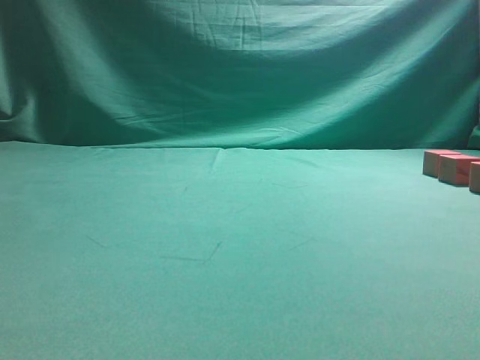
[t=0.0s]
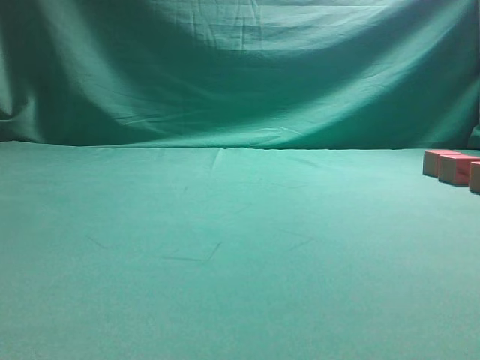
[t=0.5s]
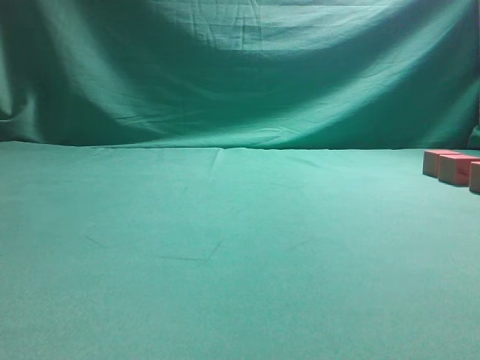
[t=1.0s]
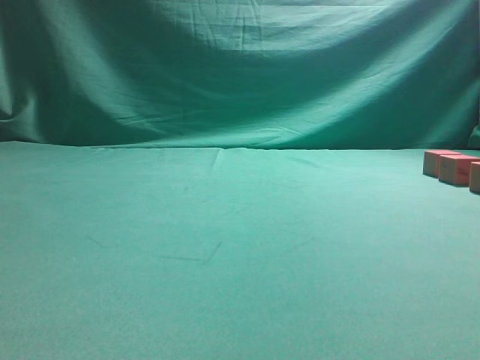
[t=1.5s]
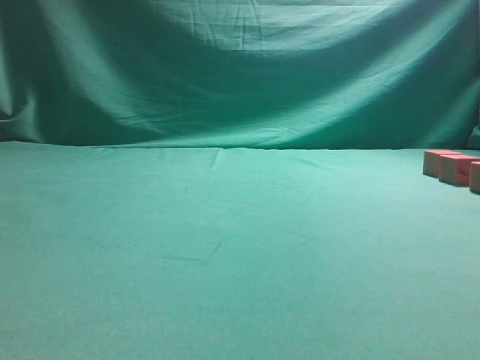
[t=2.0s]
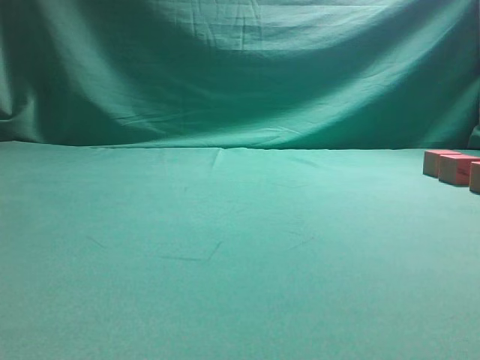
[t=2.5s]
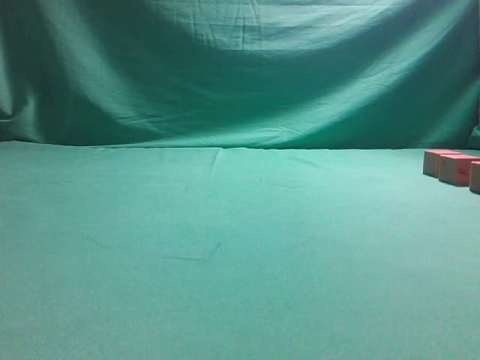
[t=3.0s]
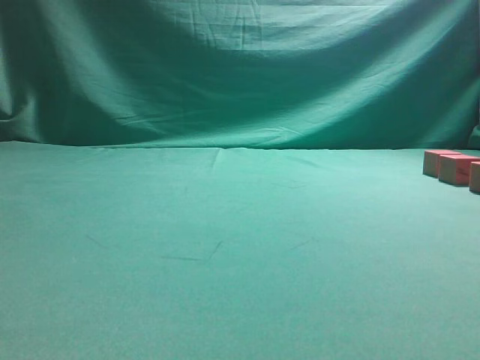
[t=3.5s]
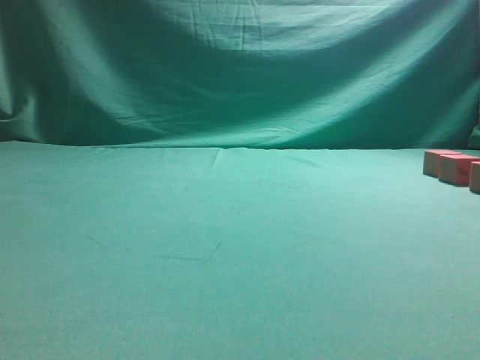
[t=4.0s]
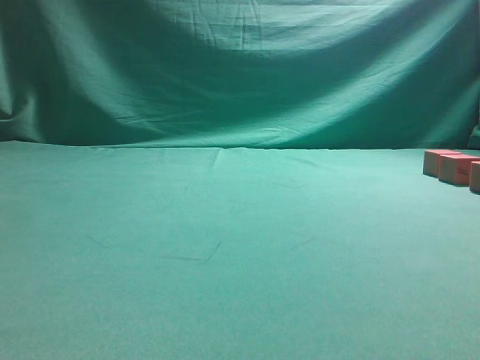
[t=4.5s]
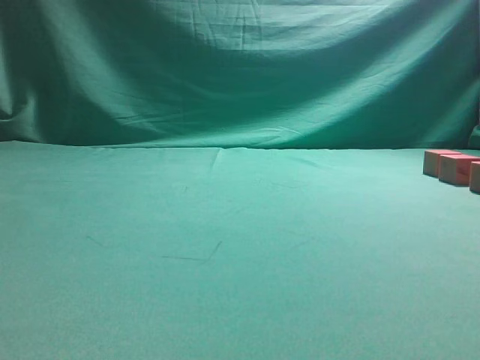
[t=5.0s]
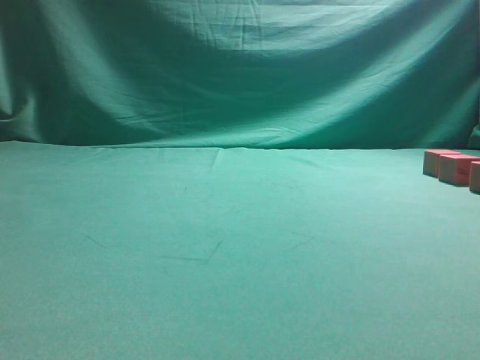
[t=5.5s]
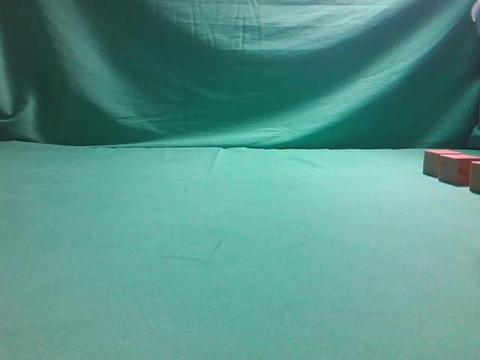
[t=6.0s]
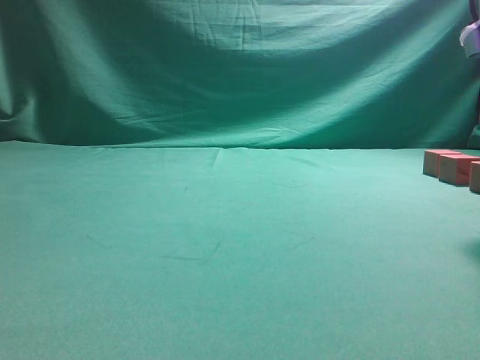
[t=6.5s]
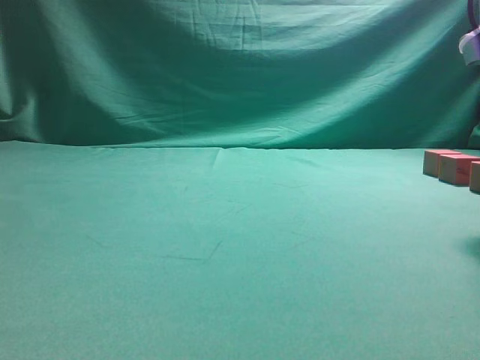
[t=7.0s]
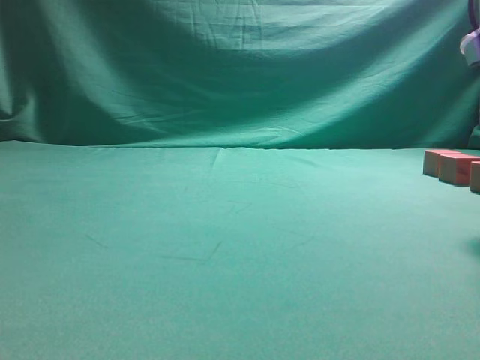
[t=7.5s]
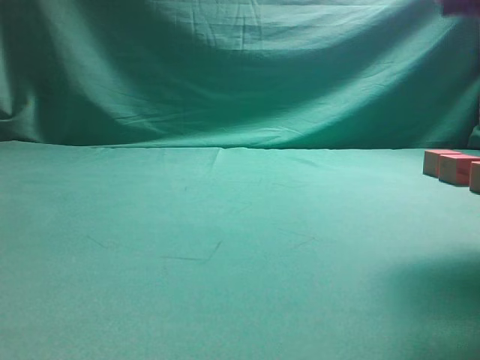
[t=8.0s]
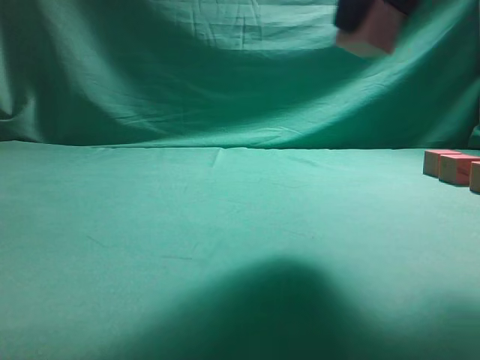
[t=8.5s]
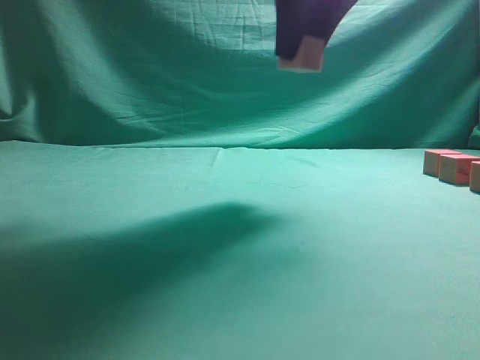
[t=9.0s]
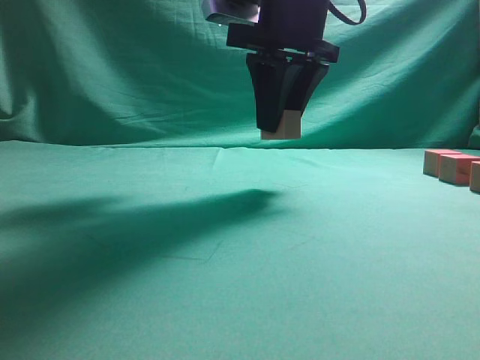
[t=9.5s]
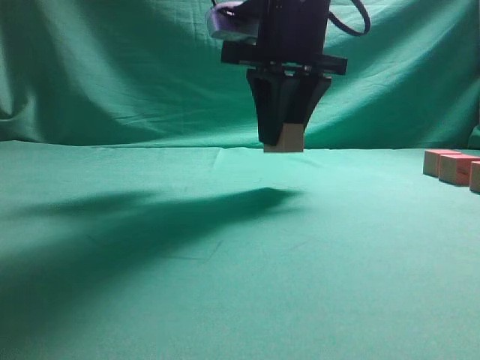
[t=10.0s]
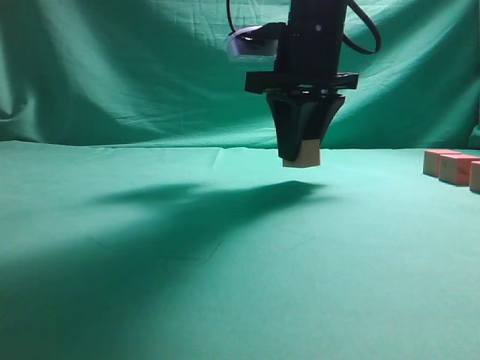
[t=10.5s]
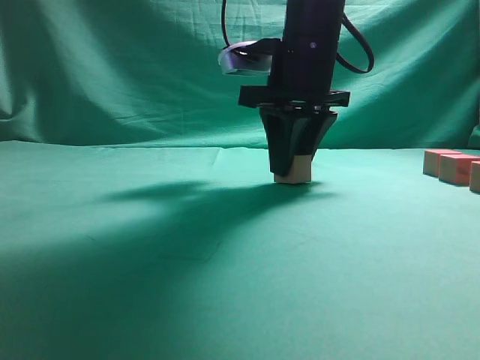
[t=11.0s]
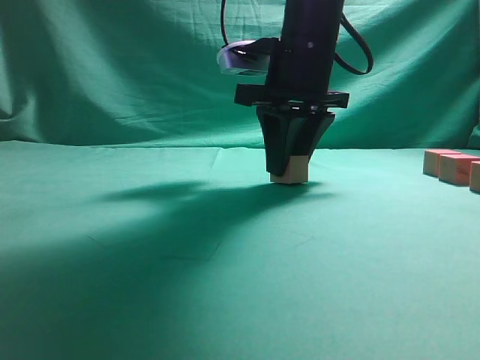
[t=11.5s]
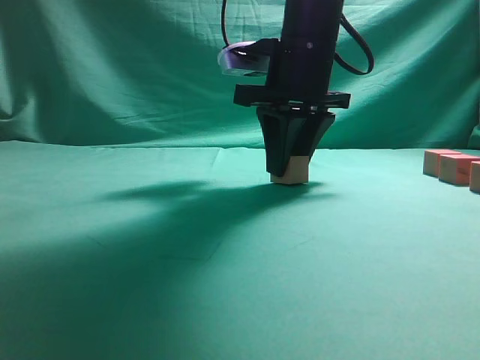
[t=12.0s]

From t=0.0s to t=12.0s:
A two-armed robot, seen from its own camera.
Task of the whole recording: pick up the multiple cubes in two columns one by one and place them in another position on the table.
Step, from t=0.0s to t=8.0s: Pick up the block on the table.
From t=6.0s to t=8.0s: The right gripper closes up.
From t=8.0s to t=10.0s: The right gripper moves to the left and forward, some 20 cm.

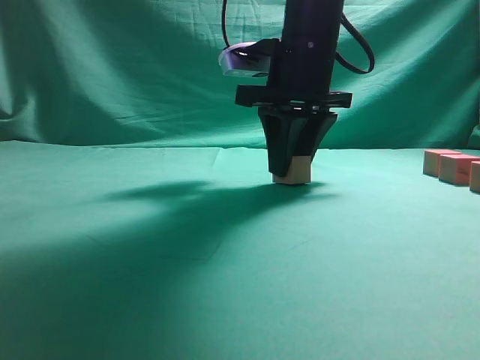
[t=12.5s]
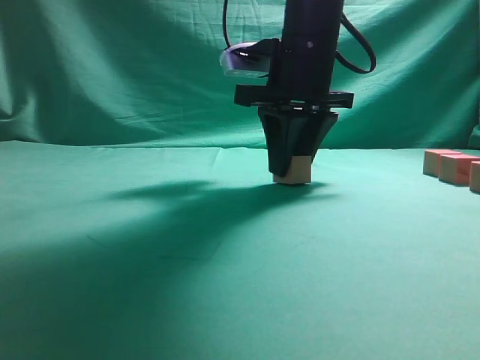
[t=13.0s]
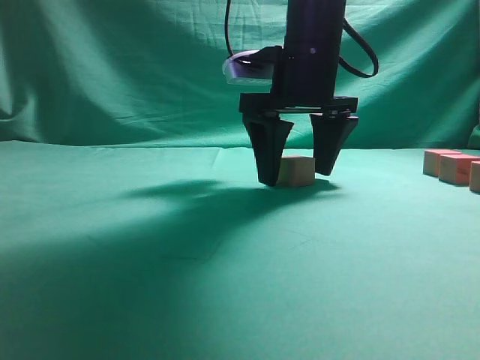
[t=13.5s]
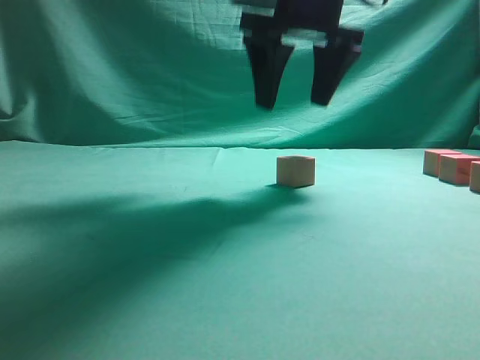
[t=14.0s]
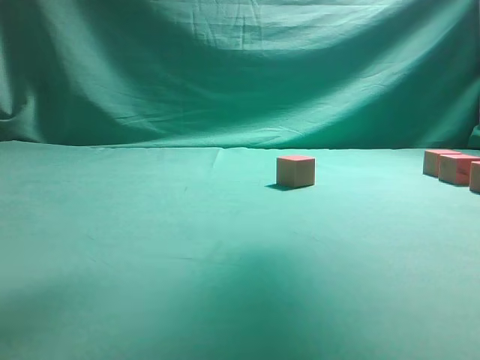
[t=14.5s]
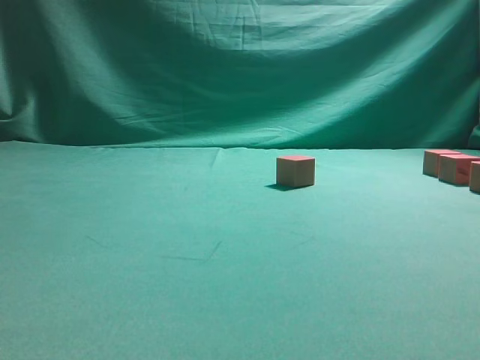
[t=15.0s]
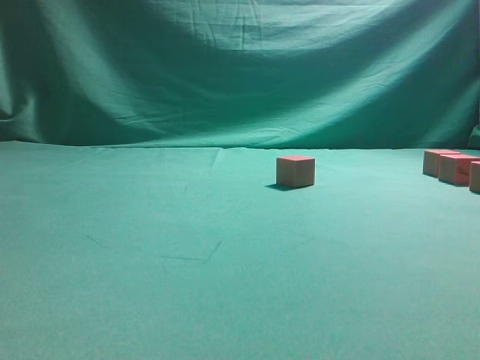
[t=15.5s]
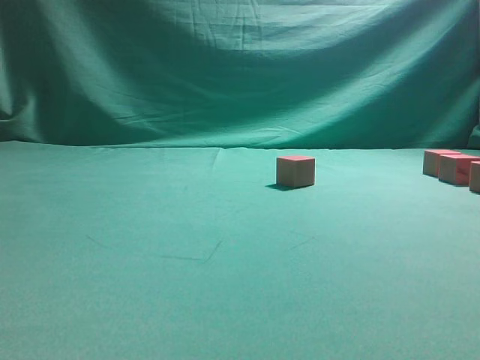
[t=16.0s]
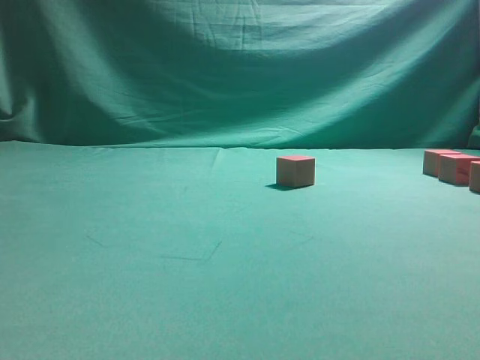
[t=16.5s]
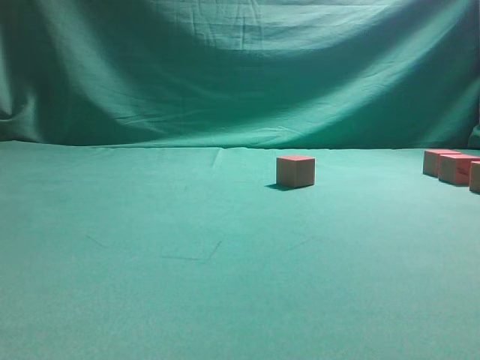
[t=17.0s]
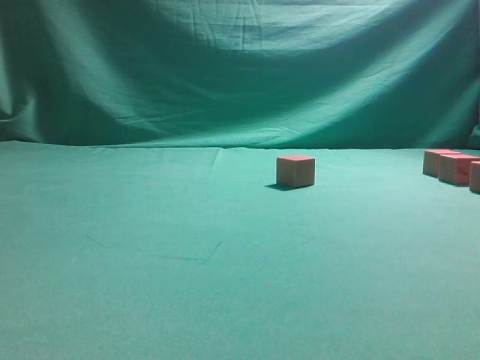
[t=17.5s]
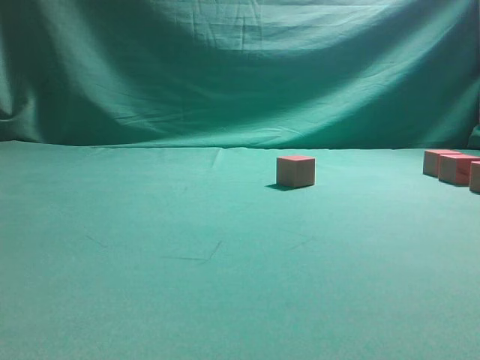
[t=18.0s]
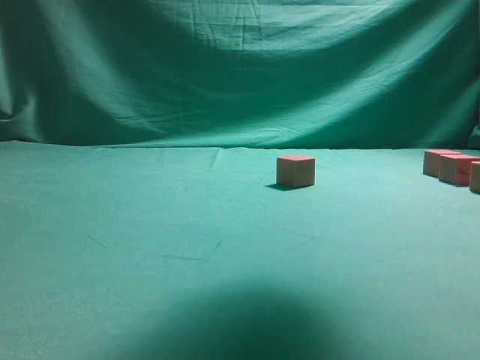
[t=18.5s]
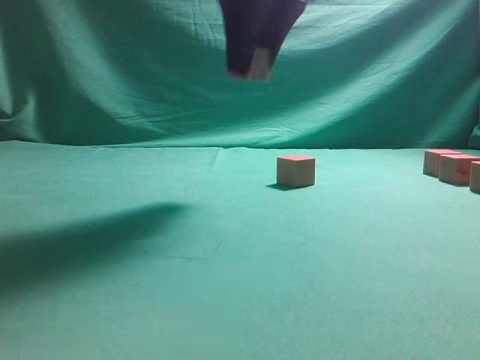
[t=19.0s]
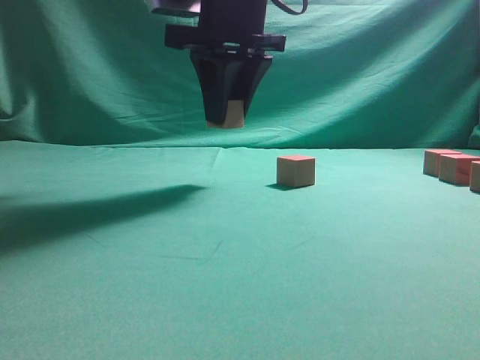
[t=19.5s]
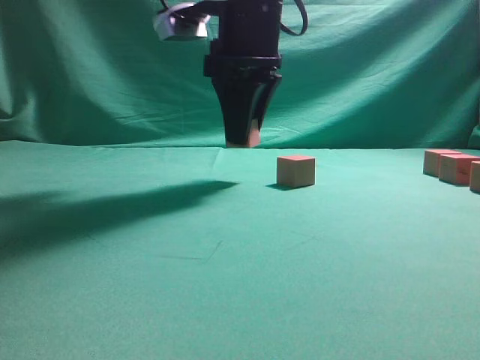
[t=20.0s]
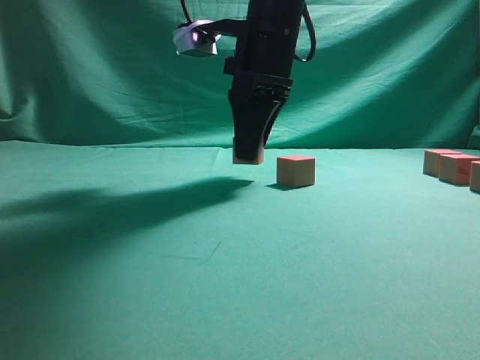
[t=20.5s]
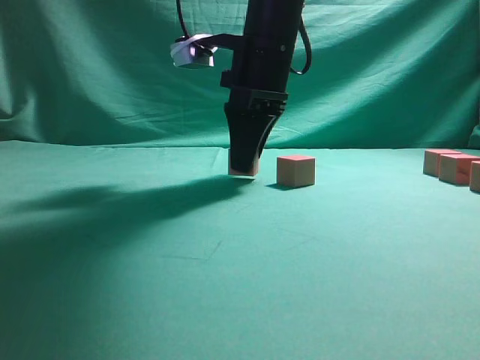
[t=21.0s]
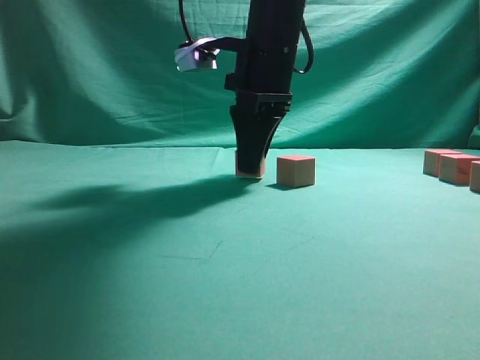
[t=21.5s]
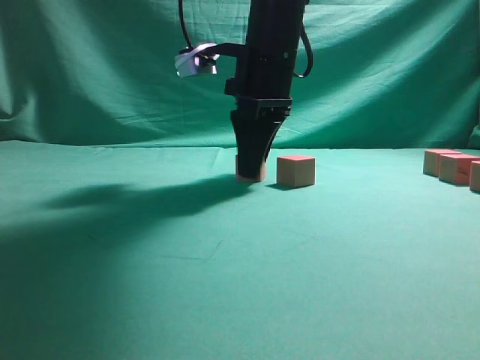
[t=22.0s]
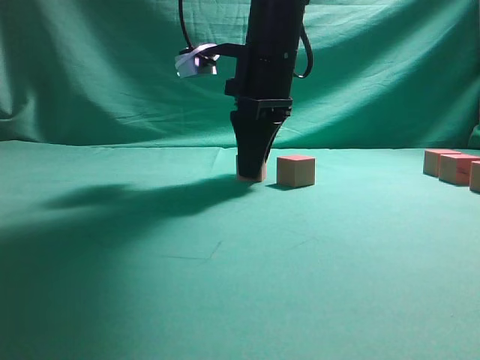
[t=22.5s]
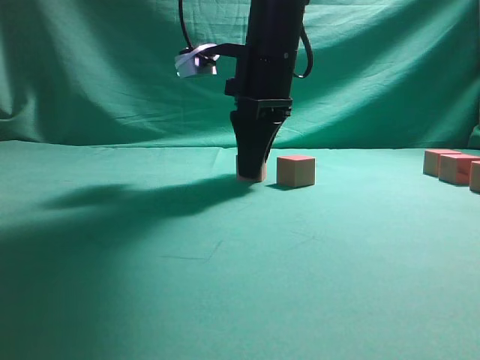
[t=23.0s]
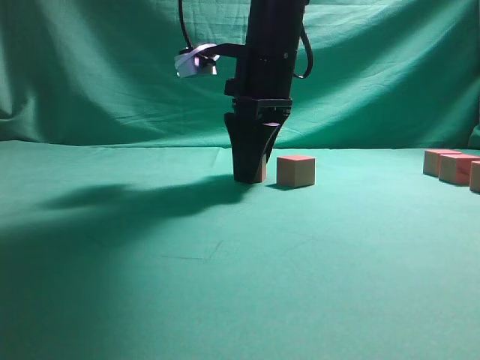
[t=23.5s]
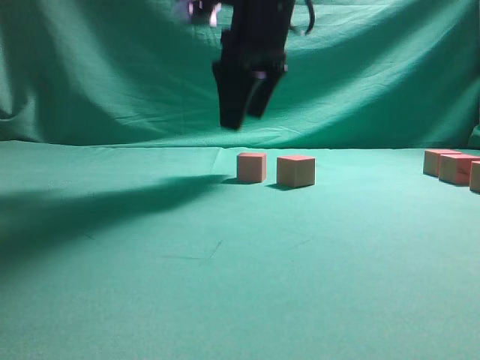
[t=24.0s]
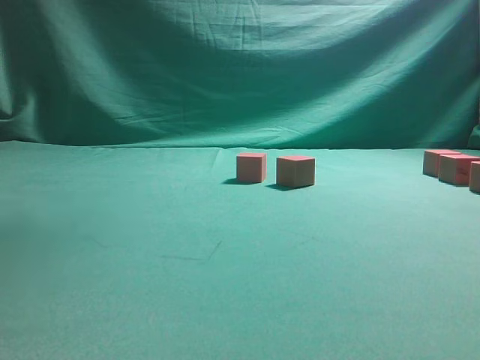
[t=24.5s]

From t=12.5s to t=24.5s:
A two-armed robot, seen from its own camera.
Task of the whole recording: pick up the multiple cubes in two columns one by one and place them in another position on the table.
Step, from t=14.5s to t=18.5s: Pick up the block on the table.
Step, from t=19.0s to t=24.0s: Place the block at the correct position to assemble the letter S.
From t=12.5s to t=14.5s: The right gripper travels upward by approximately 20 cm, and opens up.
From t=14.5s to t=16.5s: The right gripper goes roughly 25 cm downward and to the right.
From t=16.5s to t=18.5s: The right gripper shifts approximately 25 cm upward and to the left, and closes up.
From t=18.5s to t=20.5s: The right gripper is displaced forward, downward and to the left by approximately 25 cm.
From t=20.5s to t=22.5s: The grippers make only small movements.
From t=22.5s to t=24.5s: The right gripper heads upward, covering roughly 25 cm, and opens up.

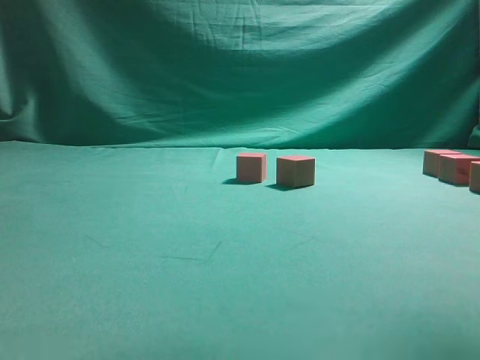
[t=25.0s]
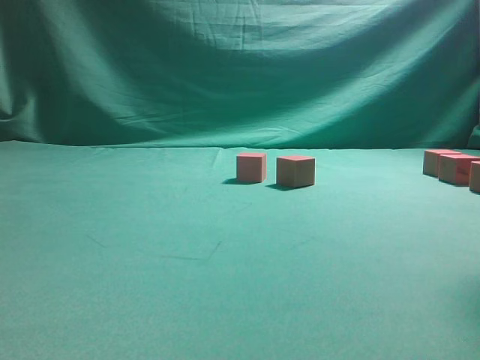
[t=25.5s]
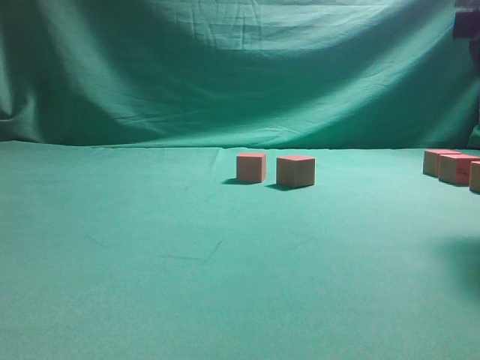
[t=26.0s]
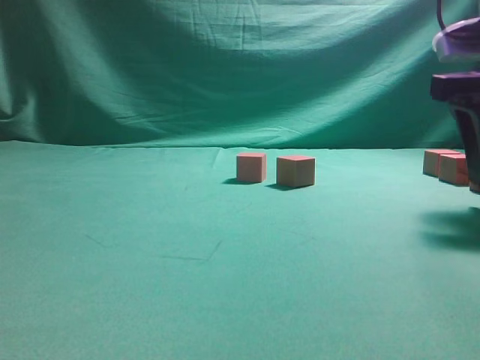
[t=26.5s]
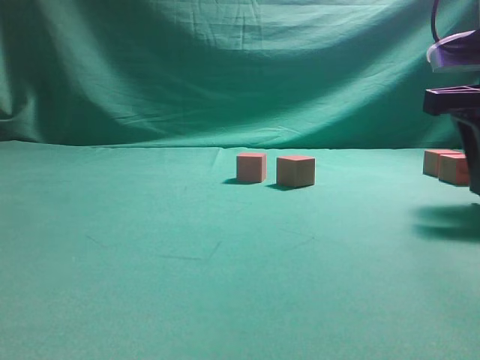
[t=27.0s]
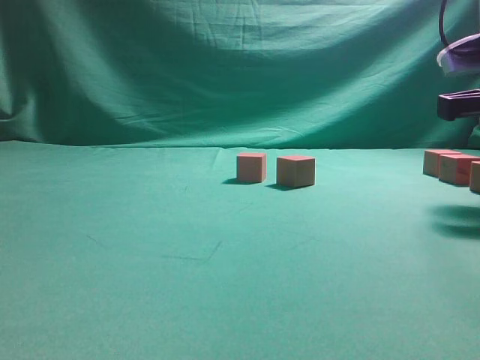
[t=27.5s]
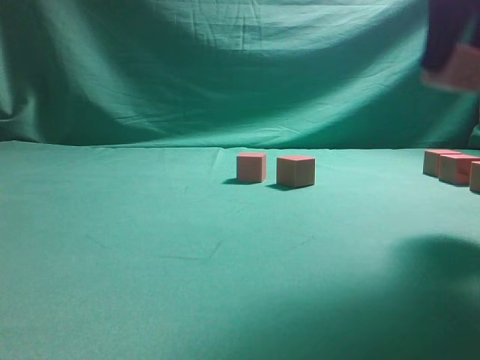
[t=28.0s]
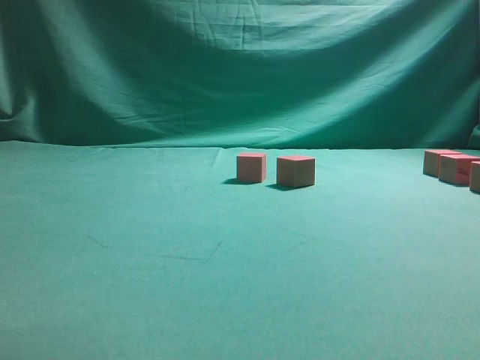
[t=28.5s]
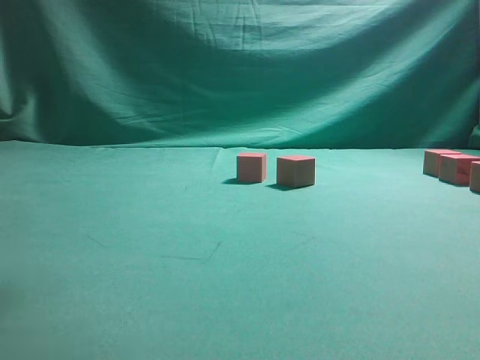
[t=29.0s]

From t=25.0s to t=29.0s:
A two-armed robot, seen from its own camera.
Task of the whole recording: pick up the multiple cubes in two columns one by one and place them in another position on the table.
Step, from t=25.0s to t=28.0s: Pick up the block on the table.
From t=25.0s to t=27.0s: The right gripper heads downward, covering about 25 cm.
From t=27.0s to t=29.0s: The right gripper moves upward and to the left, about 25 cm.
